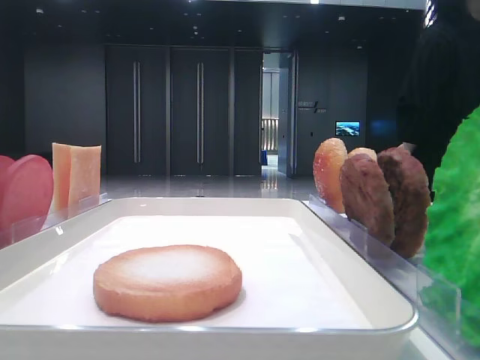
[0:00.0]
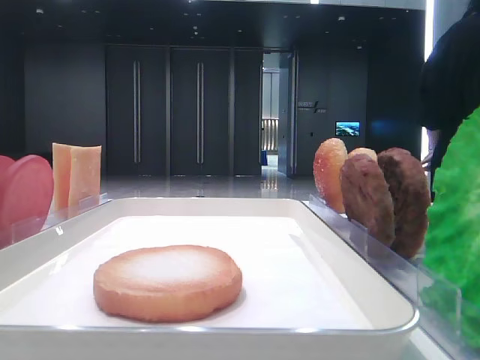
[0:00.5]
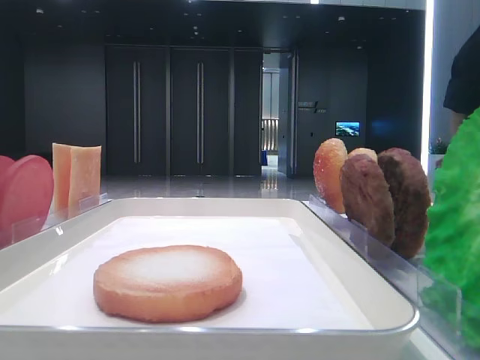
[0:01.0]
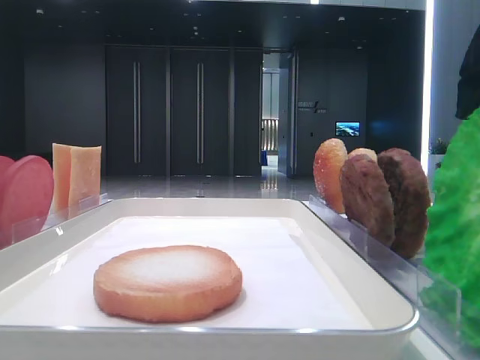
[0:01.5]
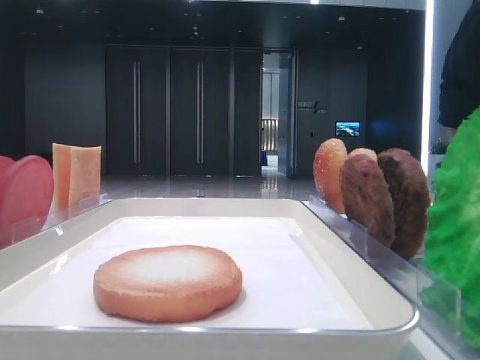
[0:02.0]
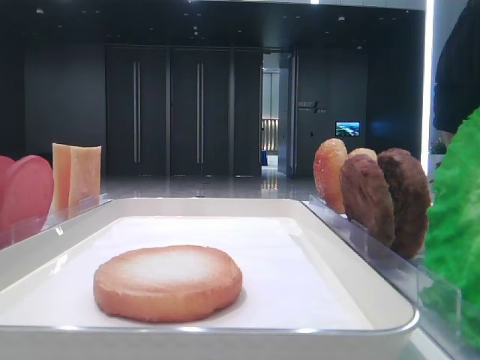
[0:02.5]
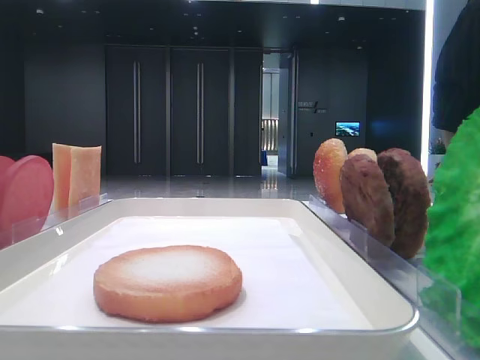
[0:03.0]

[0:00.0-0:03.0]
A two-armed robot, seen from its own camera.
0:01.5 to 0:03.0: The grippers move only a little.

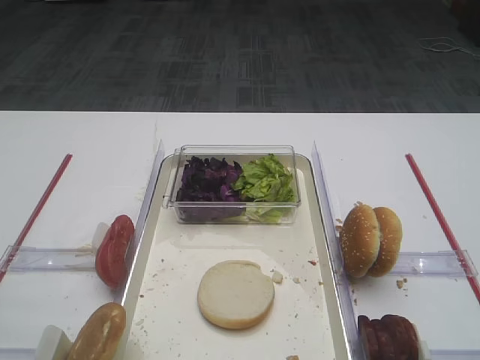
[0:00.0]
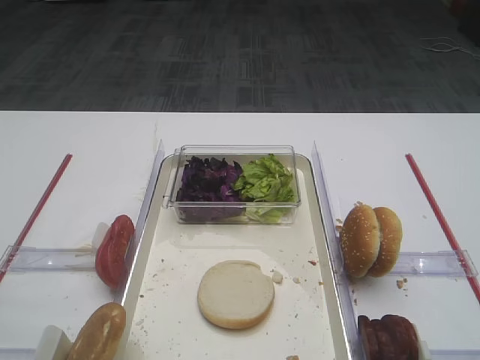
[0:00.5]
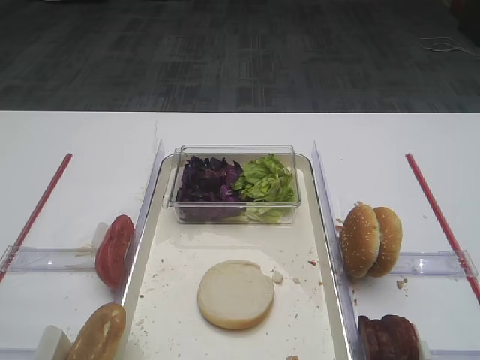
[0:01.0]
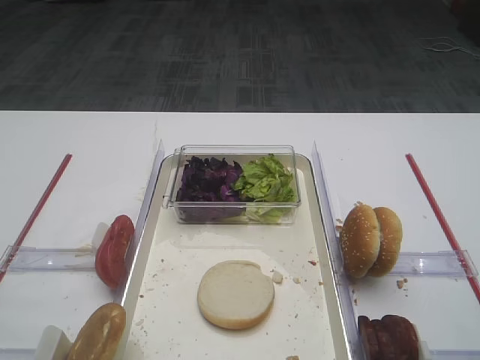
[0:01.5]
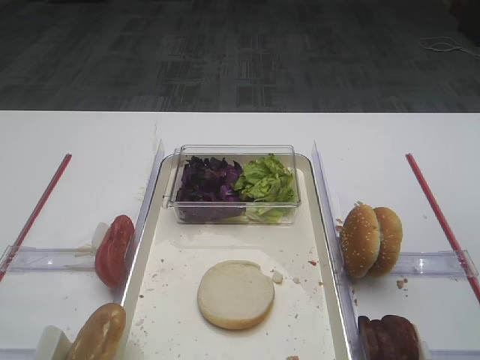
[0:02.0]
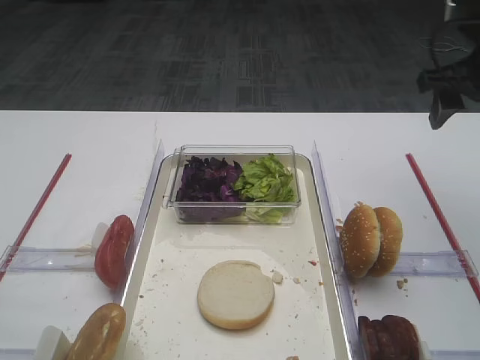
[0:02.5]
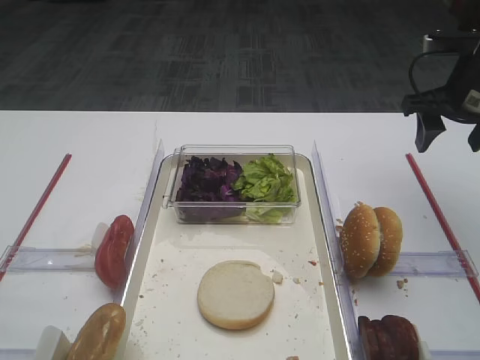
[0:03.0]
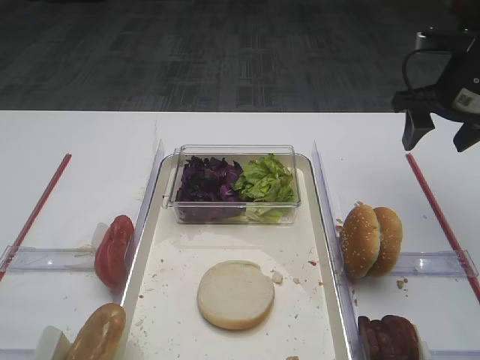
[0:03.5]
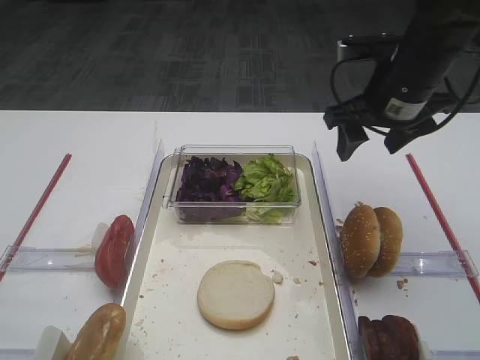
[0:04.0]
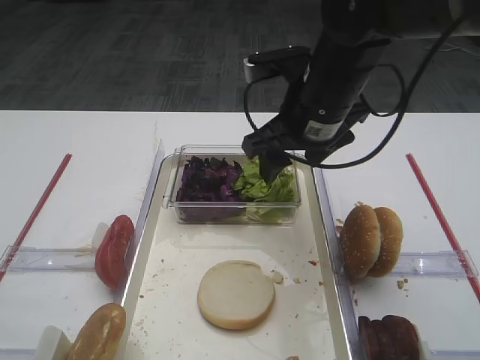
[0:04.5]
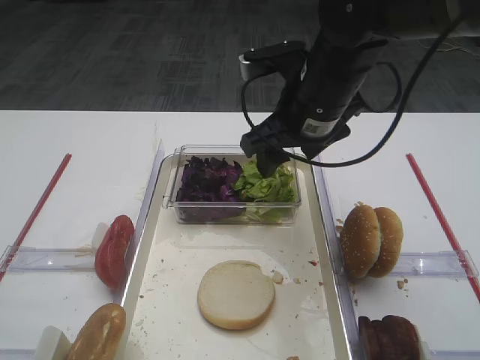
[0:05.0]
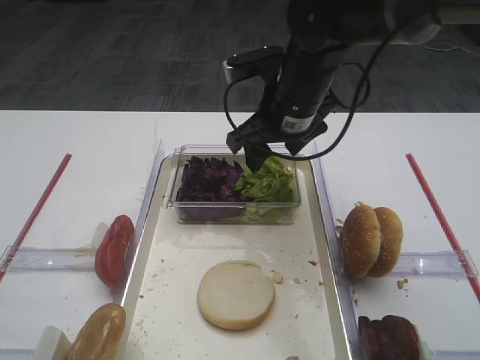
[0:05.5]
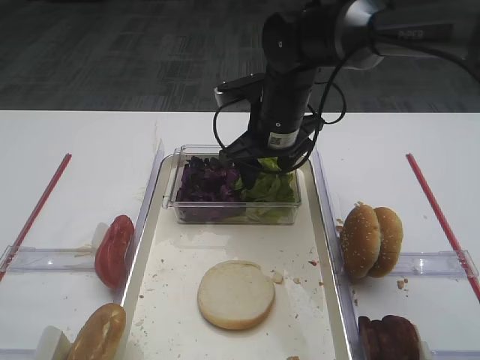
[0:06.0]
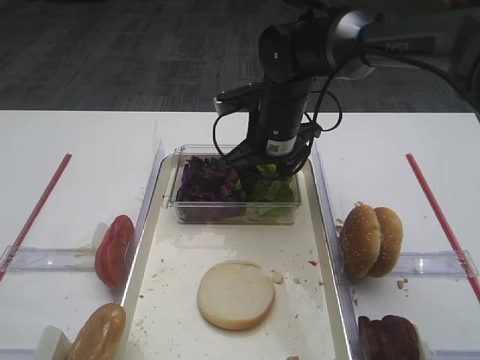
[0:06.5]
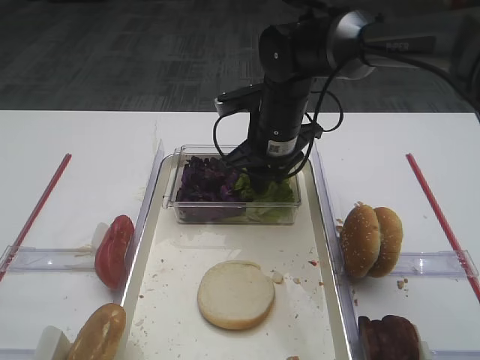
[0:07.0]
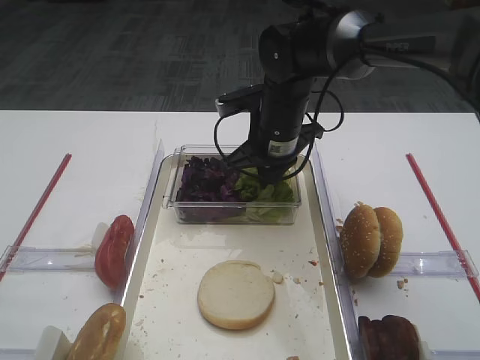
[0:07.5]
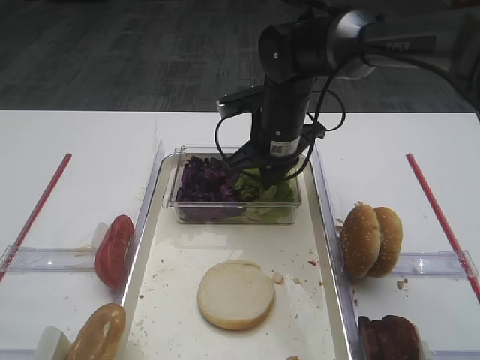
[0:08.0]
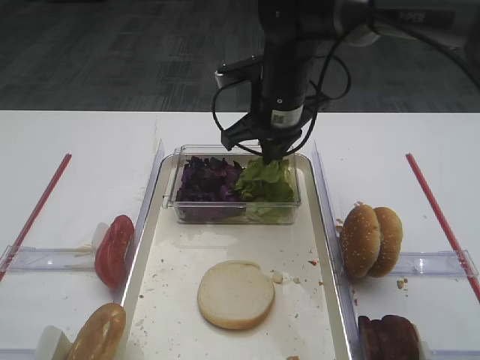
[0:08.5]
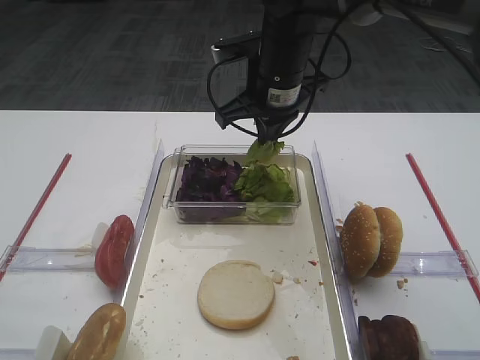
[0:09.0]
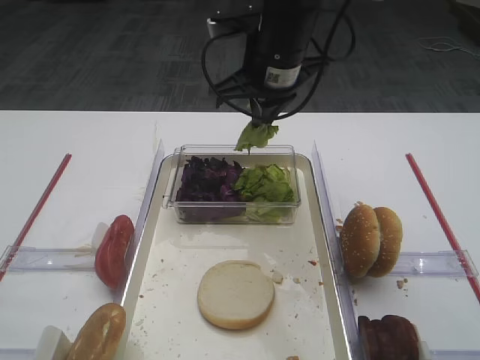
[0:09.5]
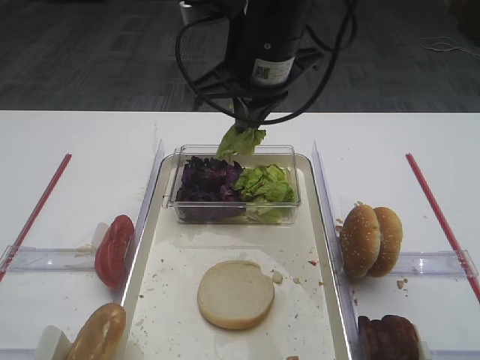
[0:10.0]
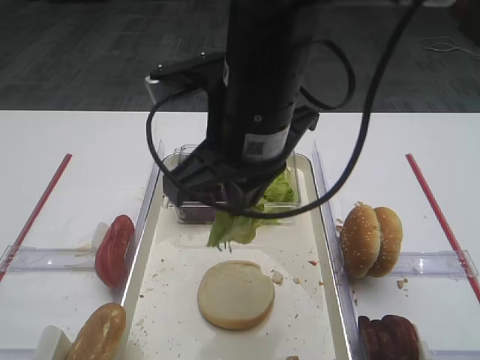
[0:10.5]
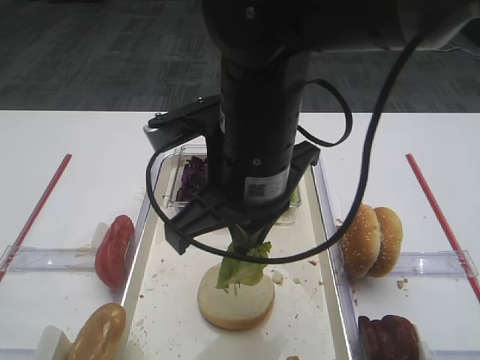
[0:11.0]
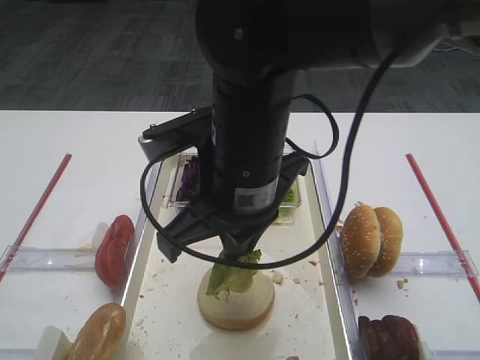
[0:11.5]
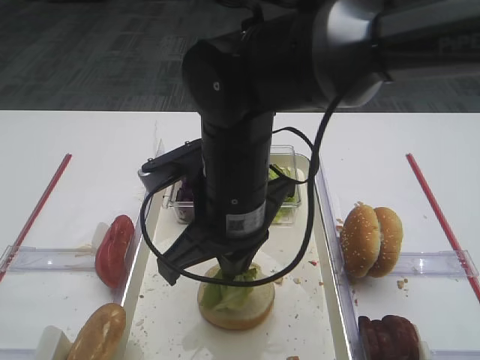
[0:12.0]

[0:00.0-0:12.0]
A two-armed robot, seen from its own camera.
Step, 0:00.0 to 0:08.5: Pick up the lettuce leaf with the right gripper.
0:02.0 to 0:04.0: The right gripper shifts some 20 cm forward, to the left and downward.
0:04.0 to 0:06.0: The right gripper is displaced to the left by about 15 cm.
0:06.0 to 0:08.0: The right gripper closes up.
0:08.0 to 0:10.0: The right gripper travels upward and backward by about 15 cm.
0:10.0 to 0:12.0: The right gripper travels backward and downward by approximately 15 cm.

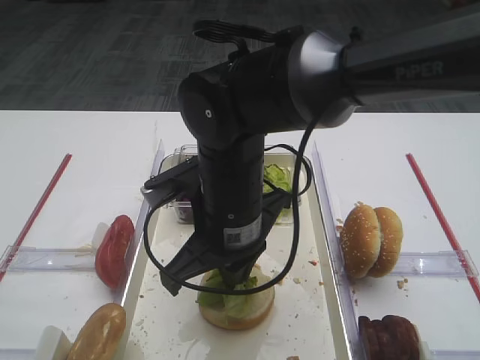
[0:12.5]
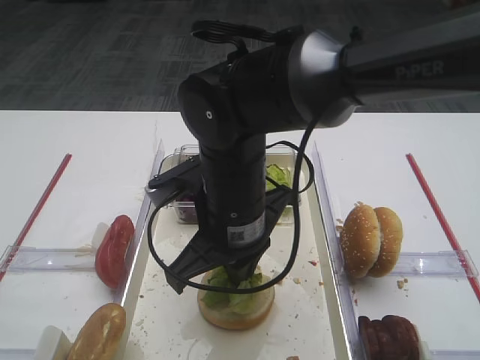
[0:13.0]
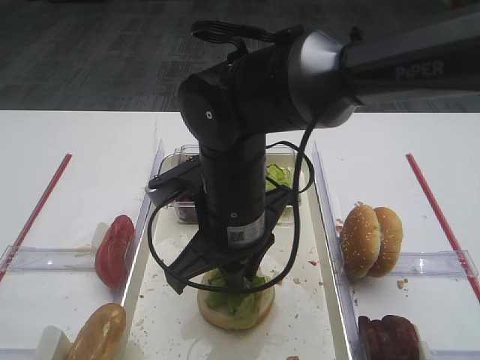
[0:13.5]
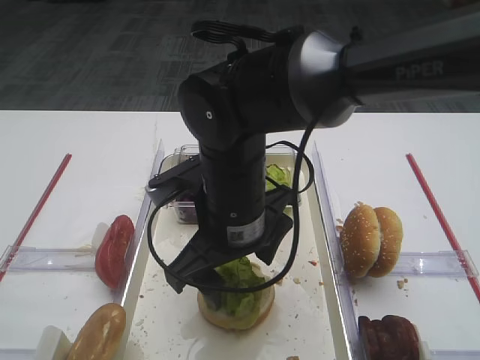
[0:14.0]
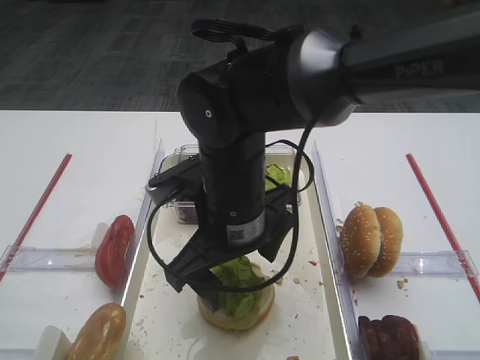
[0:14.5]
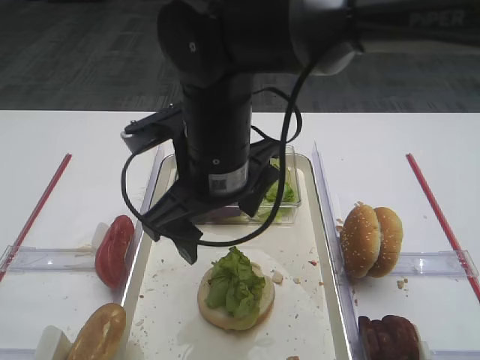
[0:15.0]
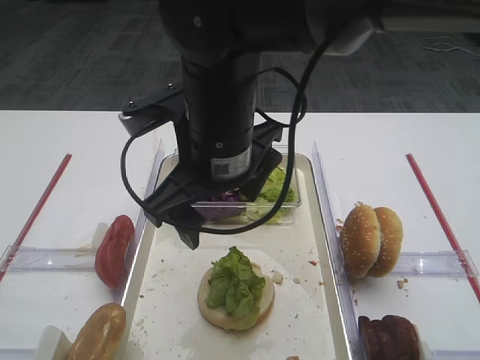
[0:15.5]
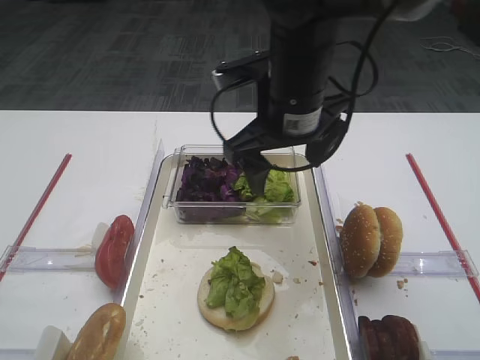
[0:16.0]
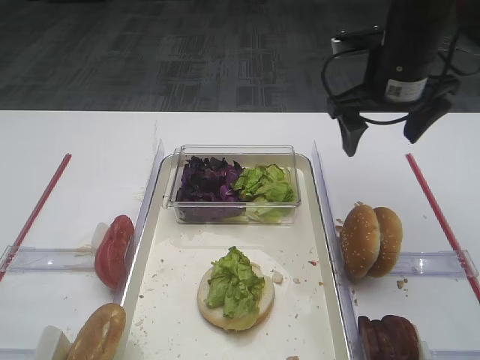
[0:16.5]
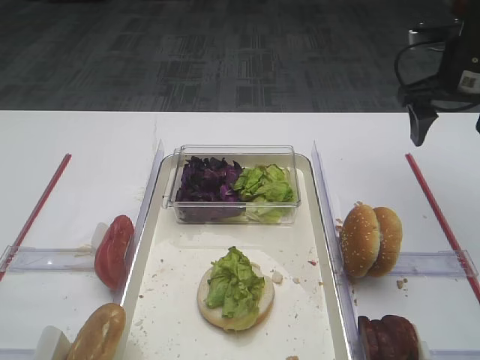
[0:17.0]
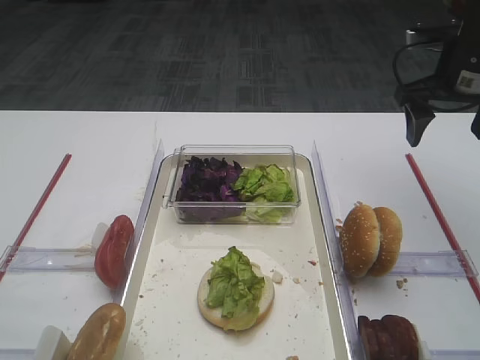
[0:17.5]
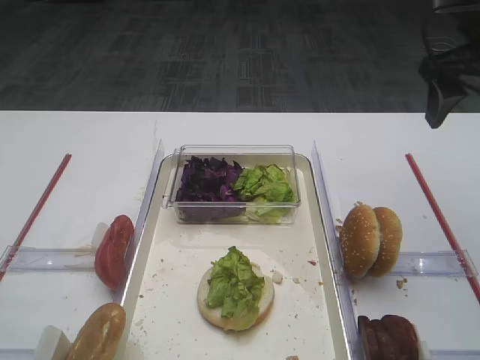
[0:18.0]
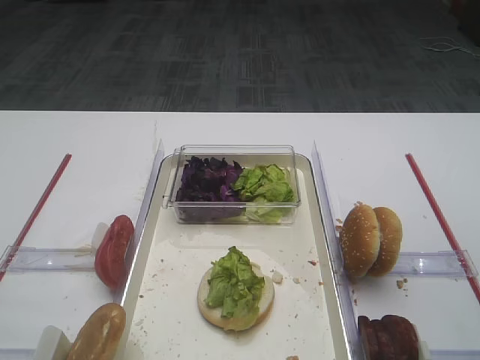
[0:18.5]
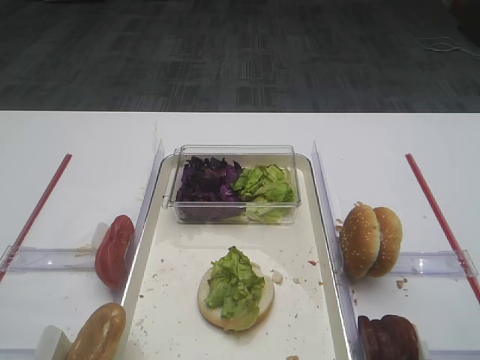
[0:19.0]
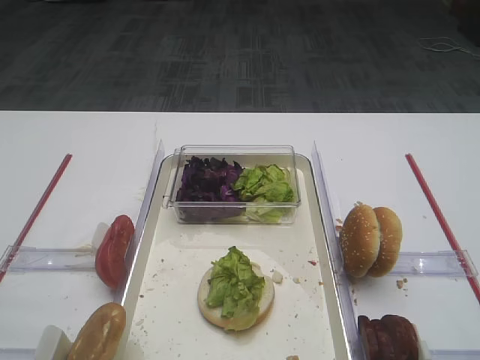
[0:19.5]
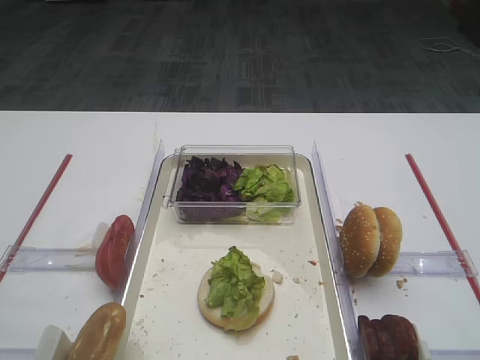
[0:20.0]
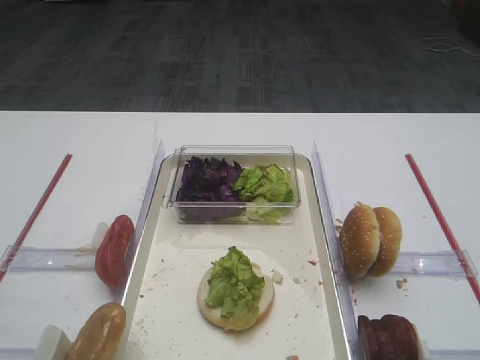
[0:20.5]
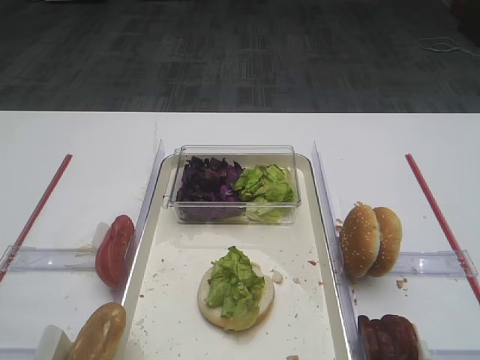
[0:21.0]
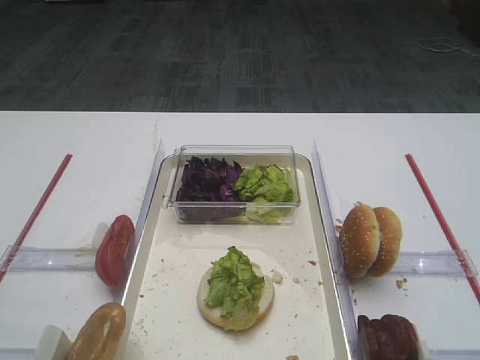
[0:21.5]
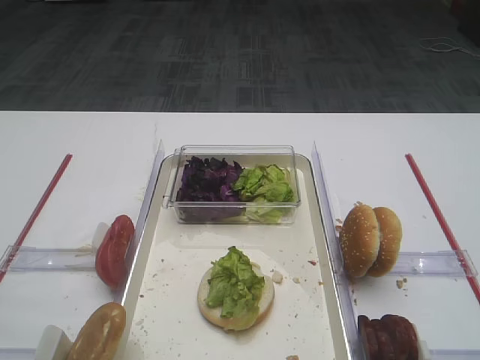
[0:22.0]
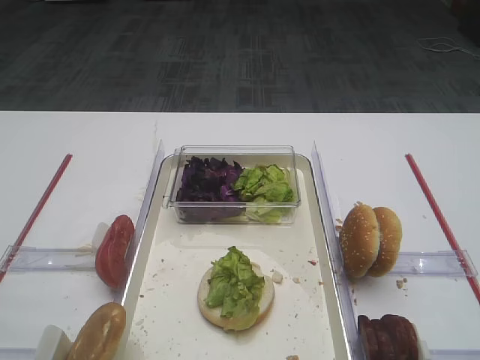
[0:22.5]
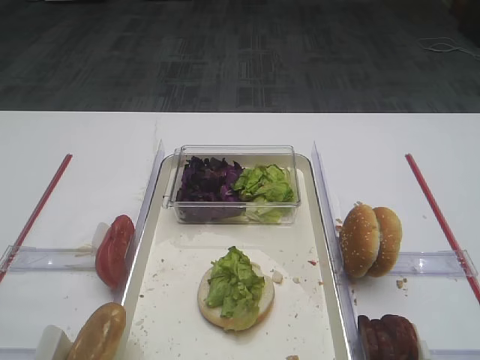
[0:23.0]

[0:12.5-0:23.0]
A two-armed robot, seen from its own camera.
Step, 0:12.5 to 0:14.5: Place the lettuce leaf on the bread slice with the right gripper.
0:12.5 to 0:14.5: The right gripper opens up.
0:14.5 to 0:16.5: The right gripper goes some 20 cm to the right and forward.
0:16.5 to 0:19.0: The right gripper moves backward, some 25 cm.
0:21.0 to 0:23.0: Both grippers stay put.
